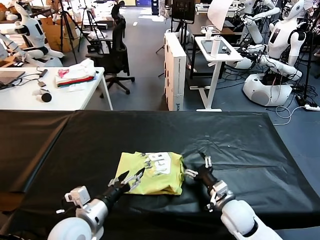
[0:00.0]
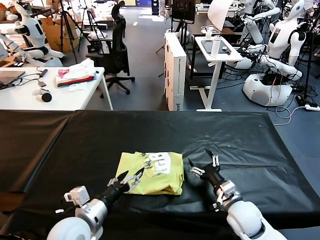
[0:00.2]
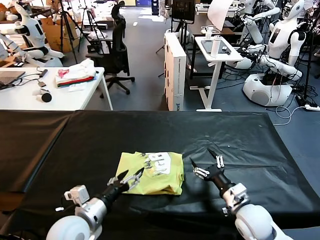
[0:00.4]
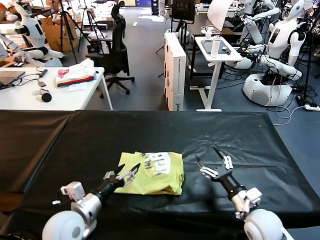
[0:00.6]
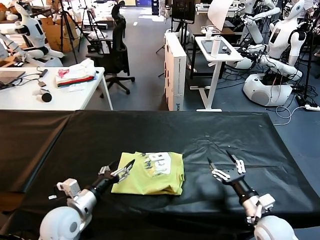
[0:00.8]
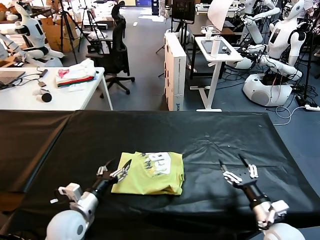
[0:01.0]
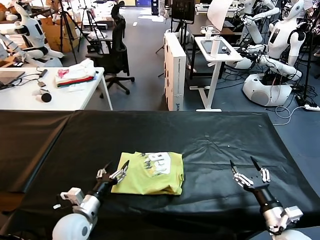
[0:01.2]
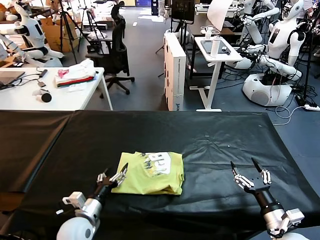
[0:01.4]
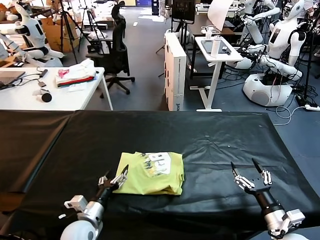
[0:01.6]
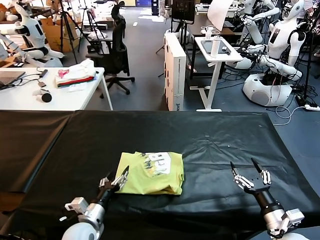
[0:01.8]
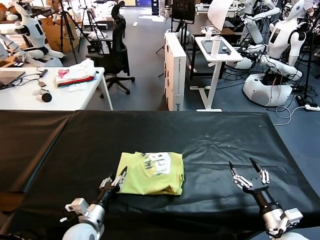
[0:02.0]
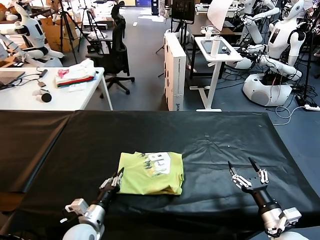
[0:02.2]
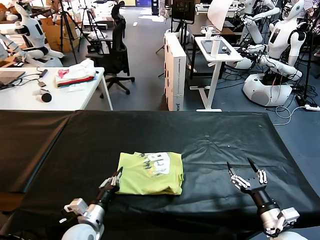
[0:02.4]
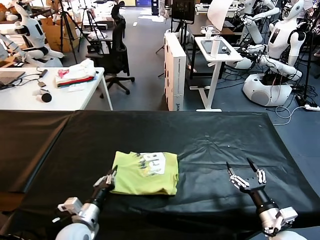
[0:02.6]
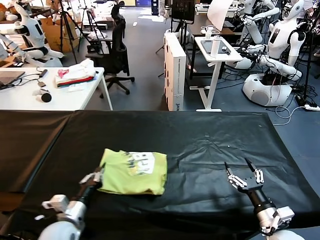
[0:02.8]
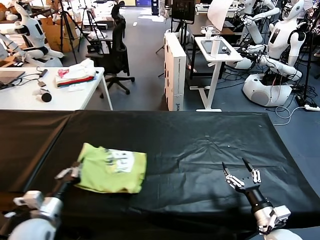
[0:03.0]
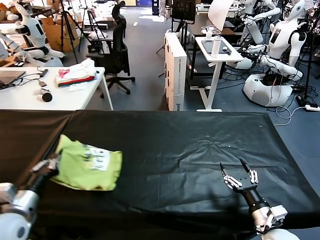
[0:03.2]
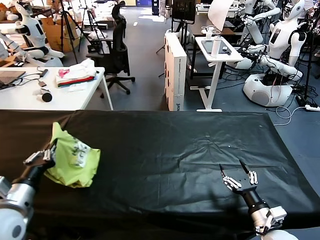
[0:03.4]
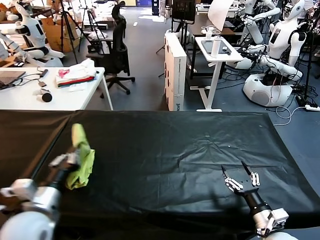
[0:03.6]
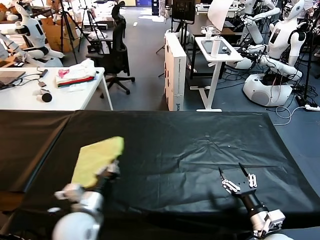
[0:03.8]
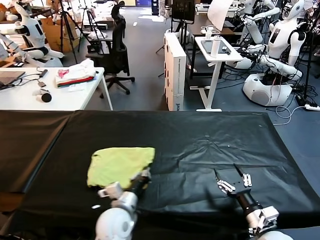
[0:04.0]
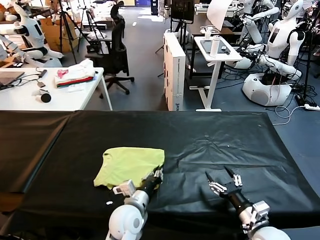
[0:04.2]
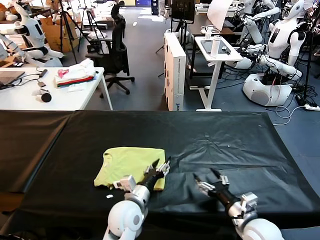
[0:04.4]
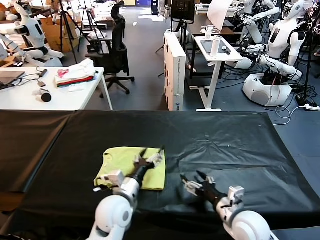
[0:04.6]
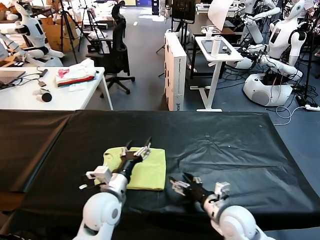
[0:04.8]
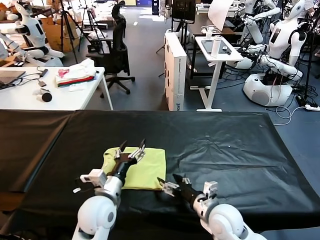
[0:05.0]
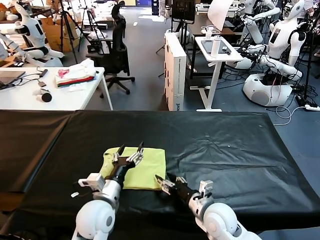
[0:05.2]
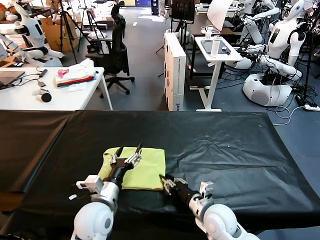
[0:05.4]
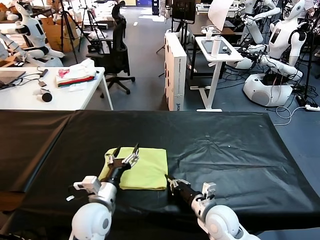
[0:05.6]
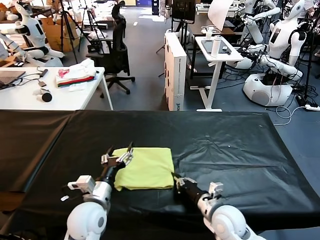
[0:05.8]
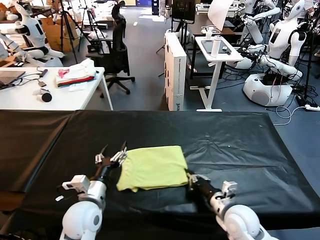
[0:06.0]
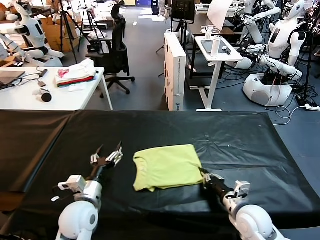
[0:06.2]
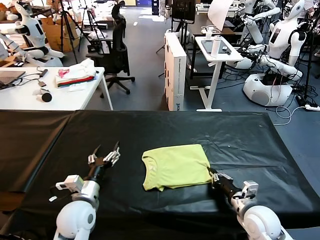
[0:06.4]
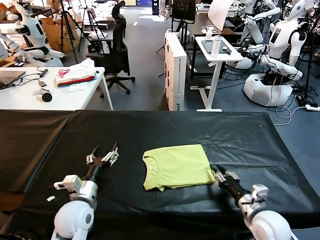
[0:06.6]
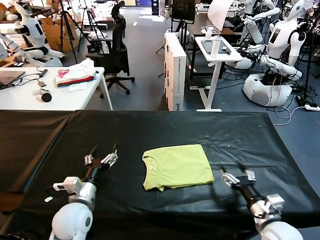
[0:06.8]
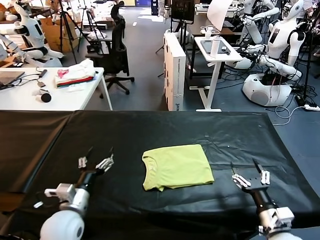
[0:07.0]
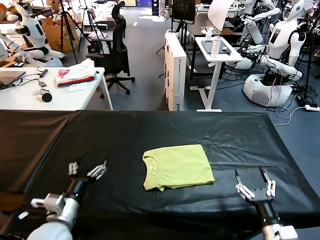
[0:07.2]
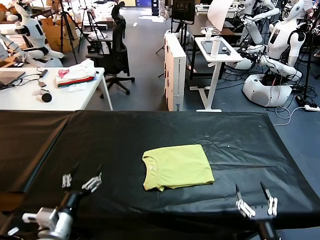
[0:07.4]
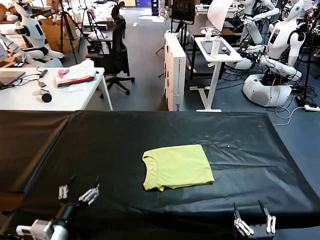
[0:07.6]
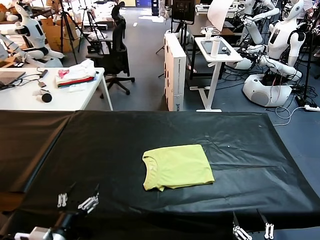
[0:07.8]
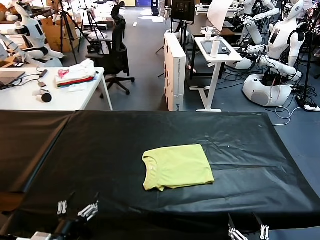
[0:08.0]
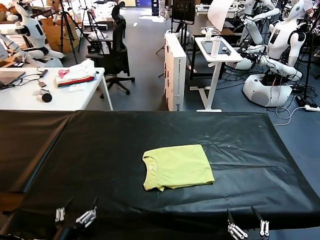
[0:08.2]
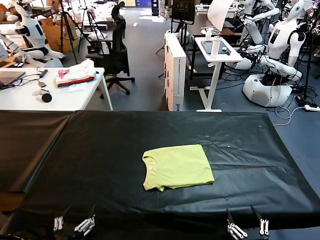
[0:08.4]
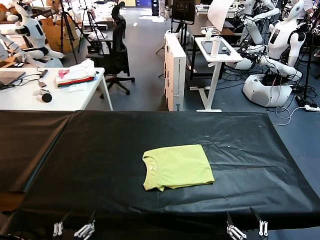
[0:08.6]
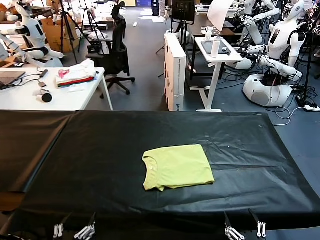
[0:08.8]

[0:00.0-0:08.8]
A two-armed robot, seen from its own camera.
Task of the whole recording: fold and organize the clothes.
Step, 0:00.0 to 0:04.4: Flip the folded clothes over with left gripper.
Step, 0:04.6 to 0:06.6: Drag the clothes to the center of the table.
0:00.0 to 0:01.4: The right gripper travels to the right and backward by roughly 15 cm. The left gripper travels downward by some 10 cm.
0:01.4 to 0:03.0: The left gripper shifts some 10 cm to the left and upward, and closes its fingers.
0:03.0 to 0:04.4: The right gripper is displaced to the left by some 5 cm; the left gripper goes some 25 cm to the right, and opens.
0:04.4 to 0:05.8: The two grippers go some 10 cm to the left. The left gripper opens. Meanwhile the right gripper closes up.
0:05.8 to 0:07.4: The right gripper travels backward and to the right by roughly 20 cm, and opens its fingers, while the left gripper goes about 10 cm backward and to the left.
0:07.4 to 0:08.8: The left gripper heads backward, covering some 10 cm; the right gripper travels backward by approximately 5 cm.
